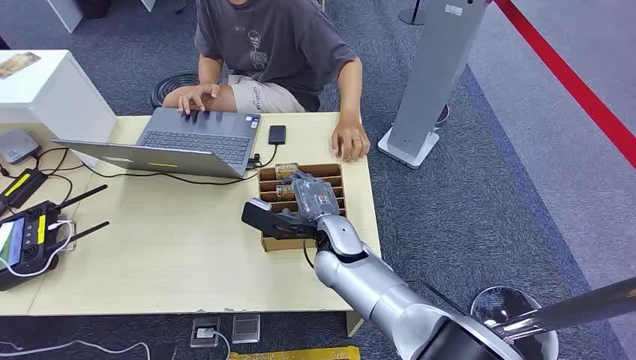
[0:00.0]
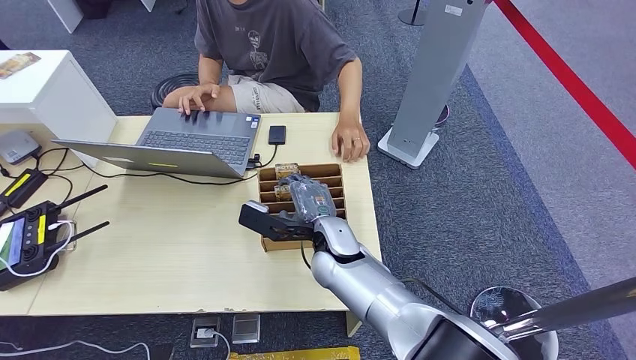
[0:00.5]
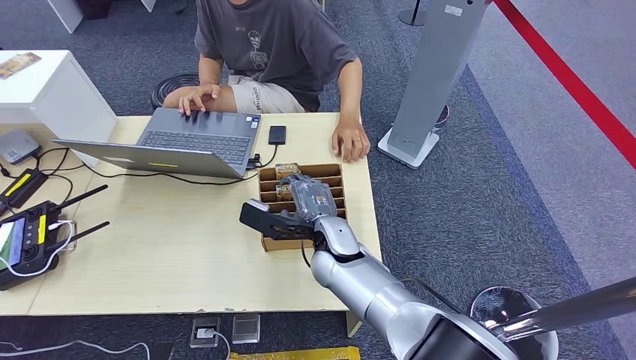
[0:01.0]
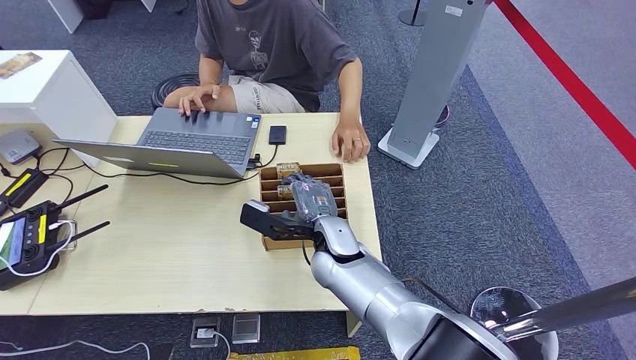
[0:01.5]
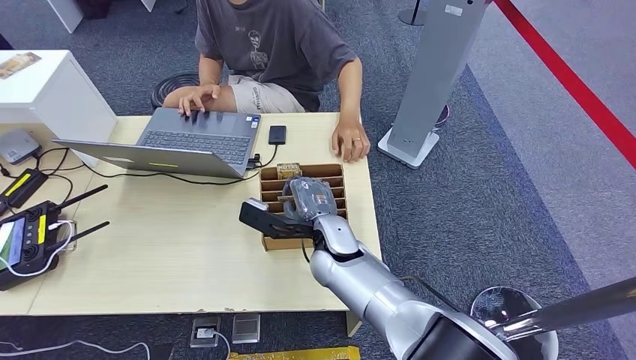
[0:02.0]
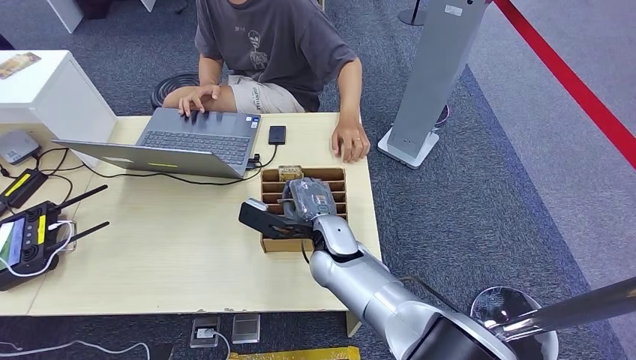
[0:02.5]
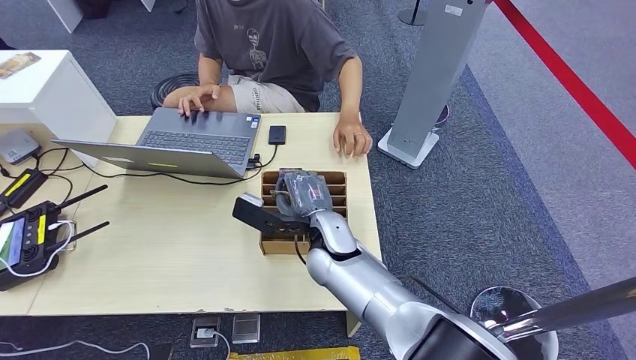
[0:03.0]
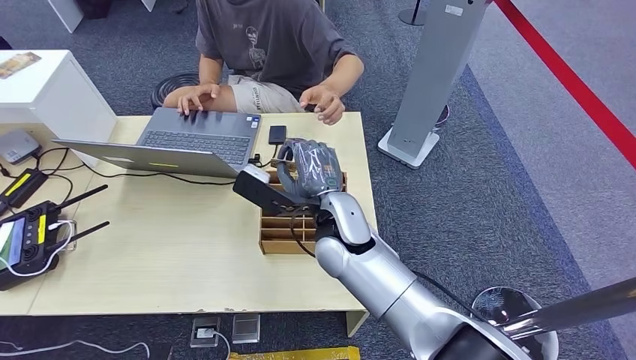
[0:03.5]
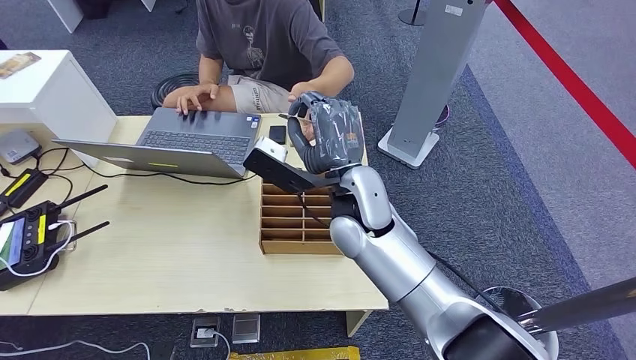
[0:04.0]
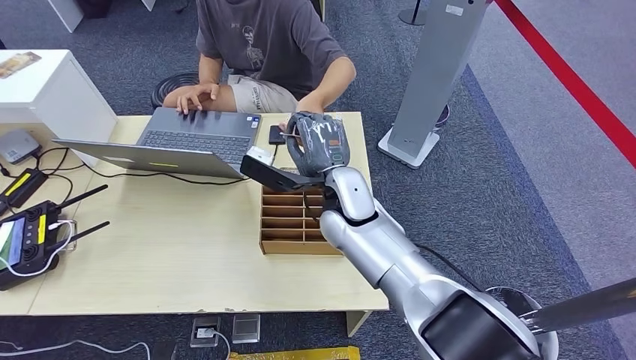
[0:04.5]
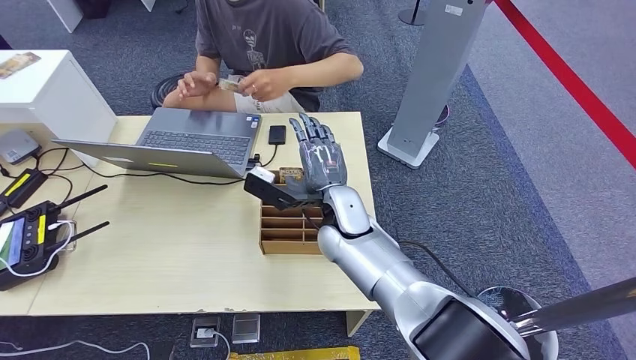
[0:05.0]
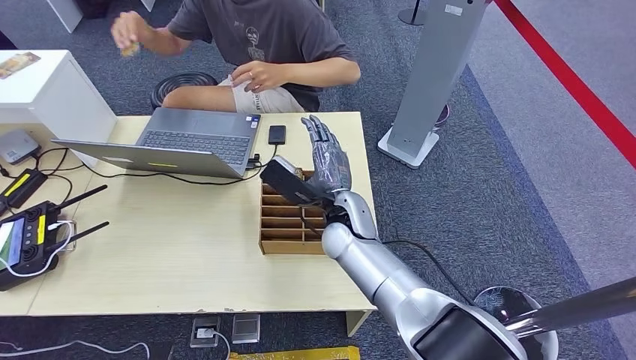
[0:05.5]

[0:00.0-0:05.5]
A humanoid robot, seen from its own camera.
Step, 0:00.0 to 0:03.0: Pick up the key card from the card box.
Step, 0:03.5 to 0:05.5: Hand the key card to the target.
0:02.0 to 0:03.5: The right hand shifts approximately 5 cm upward.
0:03.5 to 0:05.5: The right hand shifts by about 5 cm.
